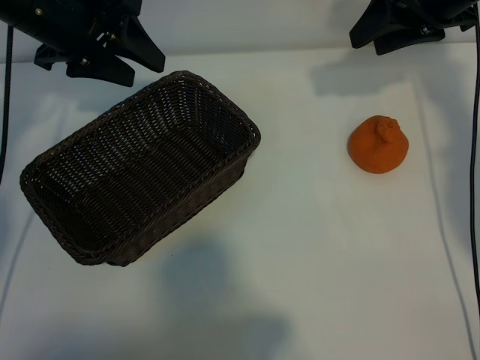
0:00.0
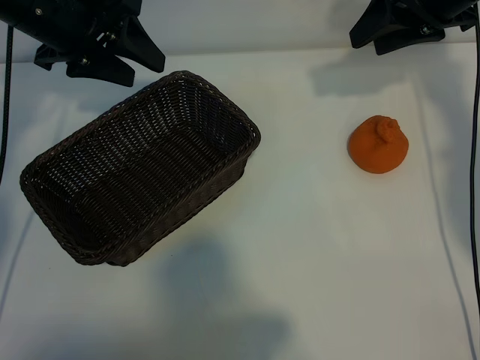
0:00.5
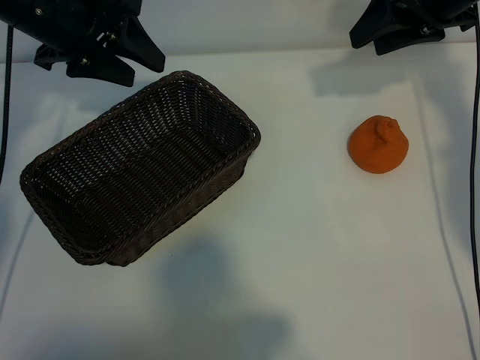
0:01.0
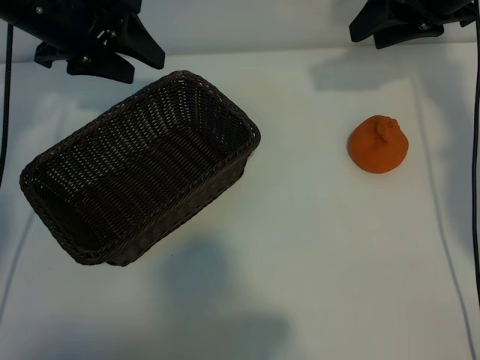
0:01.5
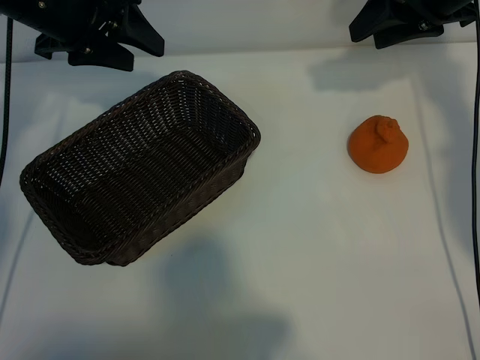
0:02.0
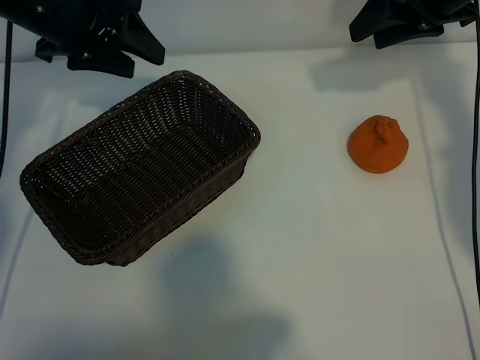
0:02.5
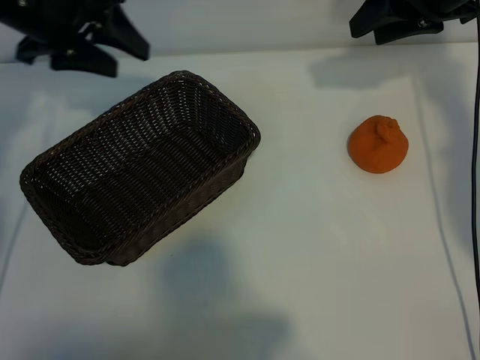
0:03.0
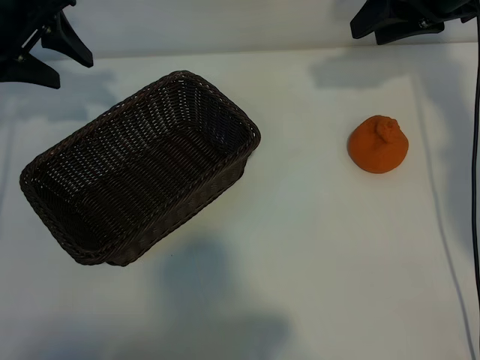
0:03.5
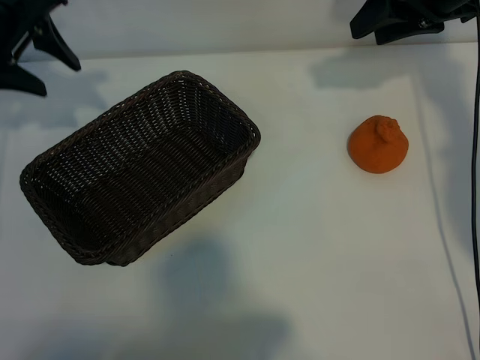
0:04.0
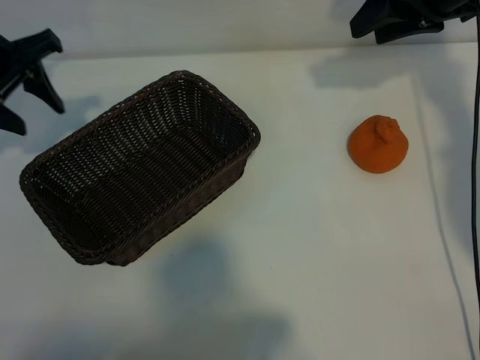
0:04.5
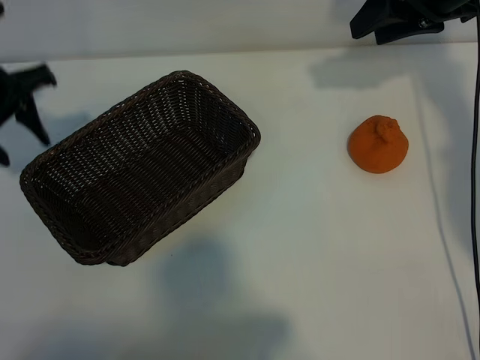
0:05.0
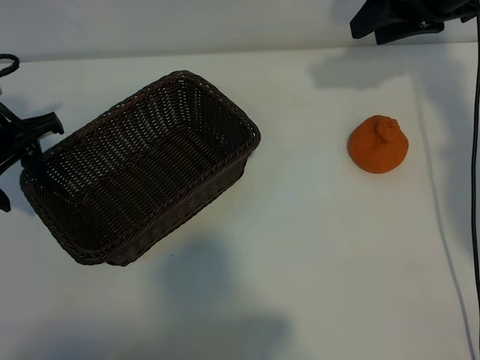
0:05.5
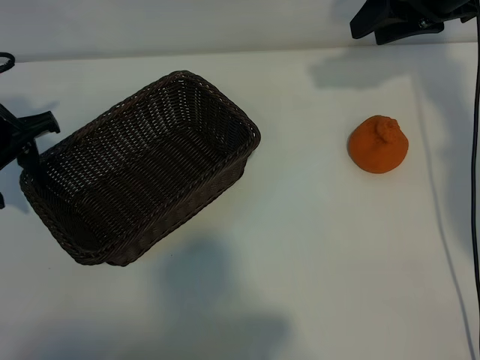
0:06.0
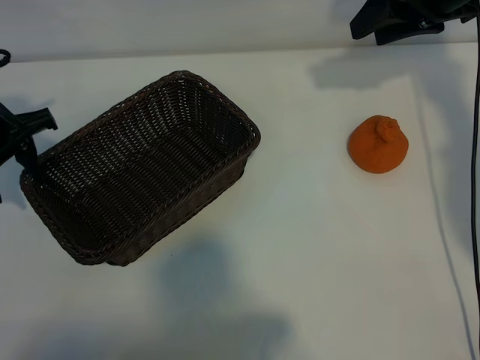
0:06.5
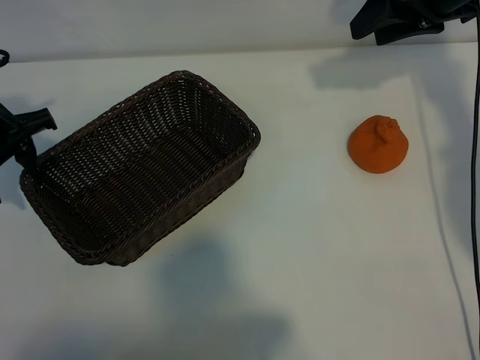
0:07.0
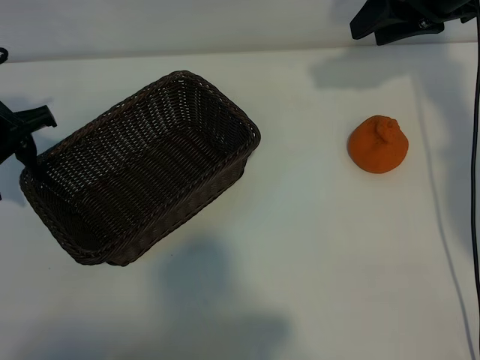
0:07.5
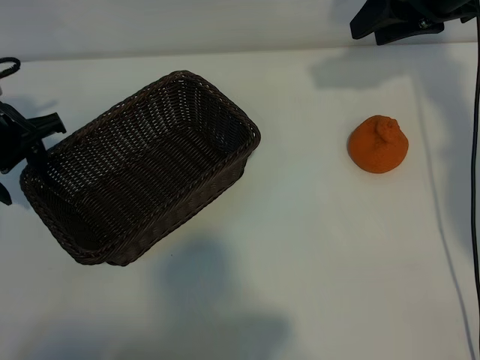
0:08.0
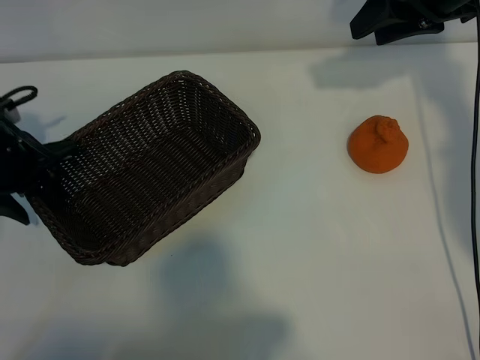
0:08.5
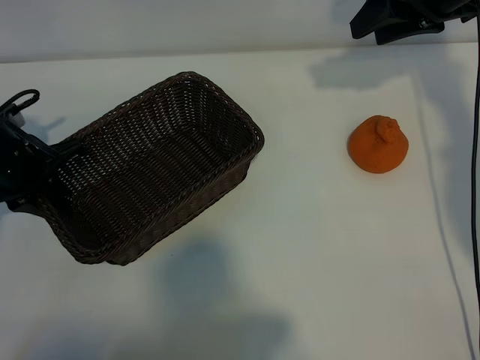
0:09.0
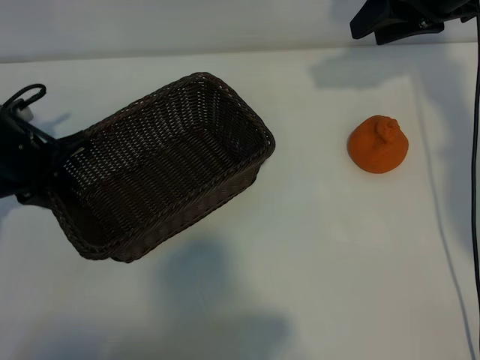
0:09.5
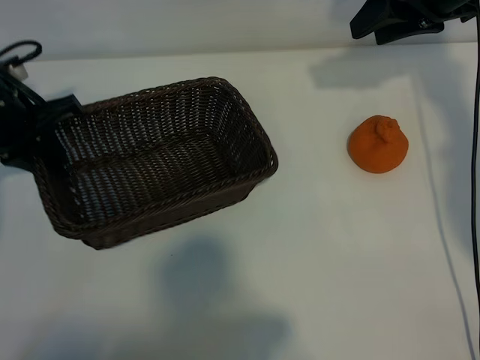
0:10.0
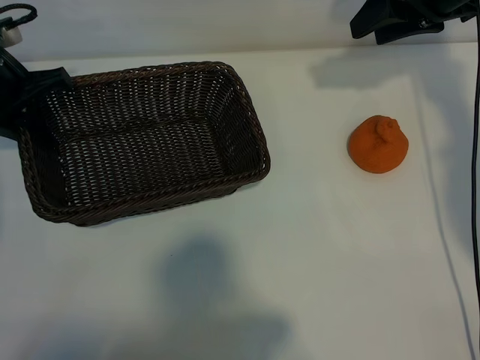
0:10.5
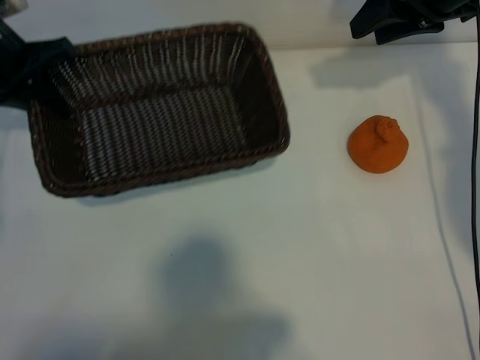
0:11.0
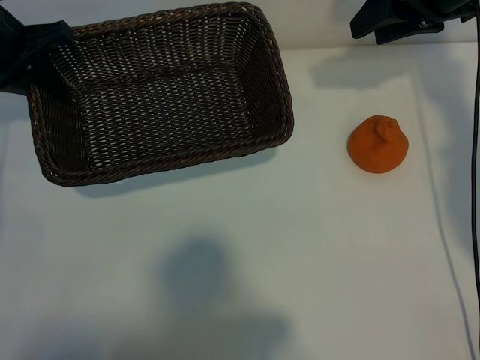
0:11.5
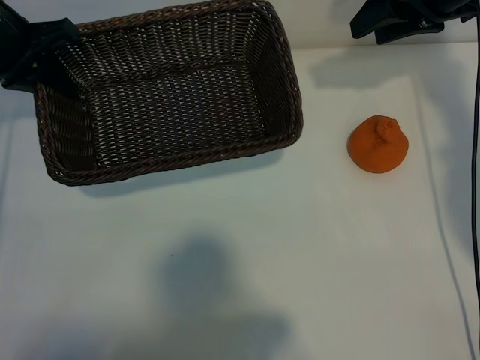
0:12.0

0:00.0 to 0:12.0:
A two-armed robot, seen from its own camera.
Task of the whole recording: pick up the orange and put it into the basket.
Step, 0:01.5 to 0:08.5: Grasp the basket with left gripper.

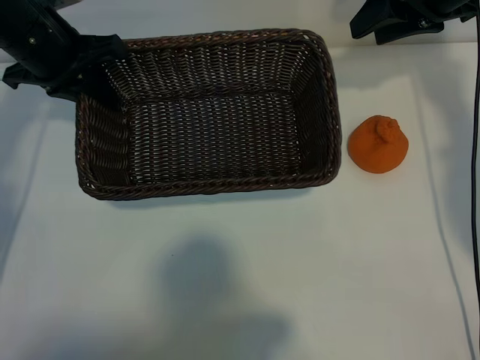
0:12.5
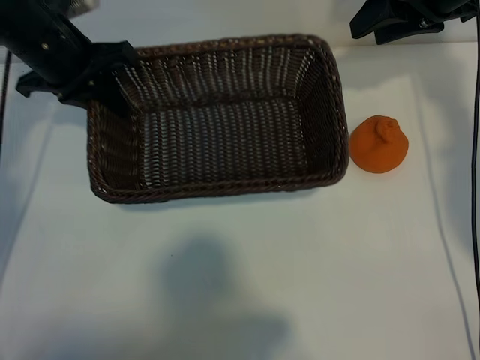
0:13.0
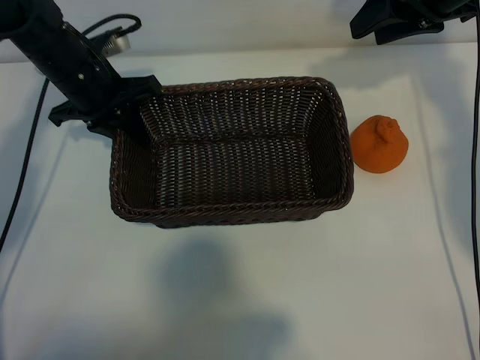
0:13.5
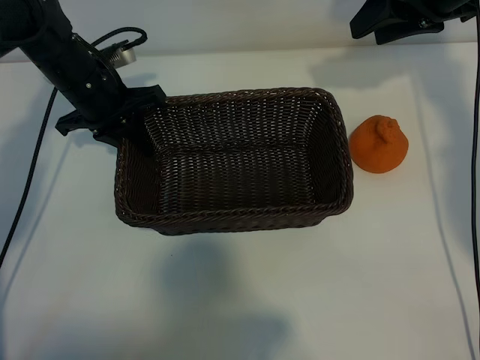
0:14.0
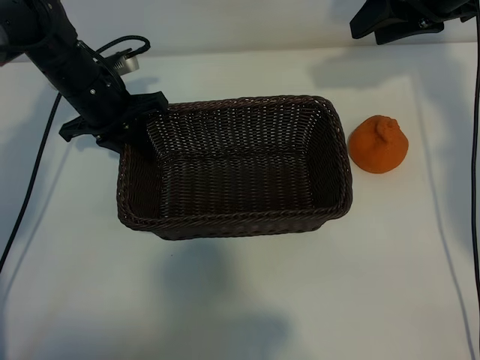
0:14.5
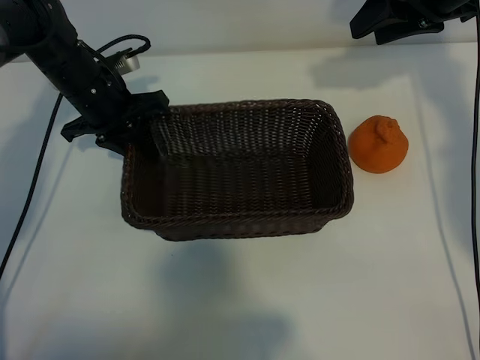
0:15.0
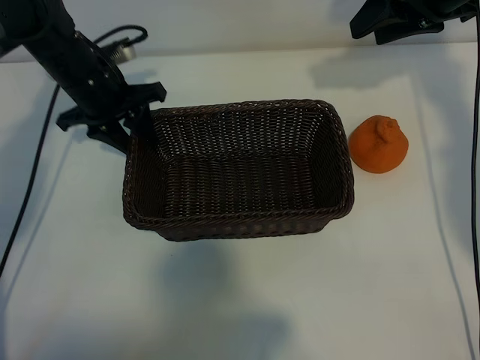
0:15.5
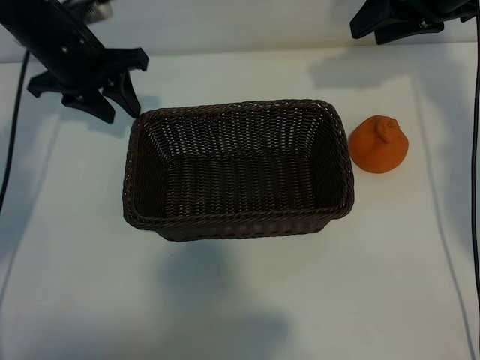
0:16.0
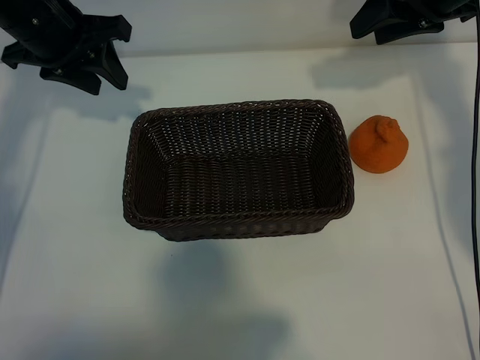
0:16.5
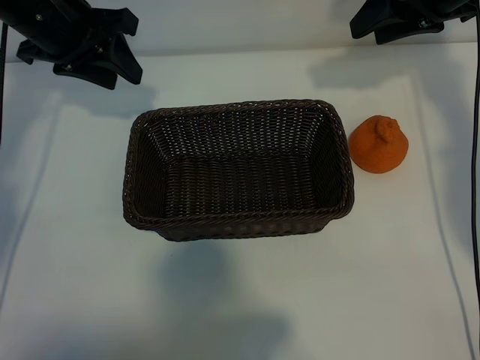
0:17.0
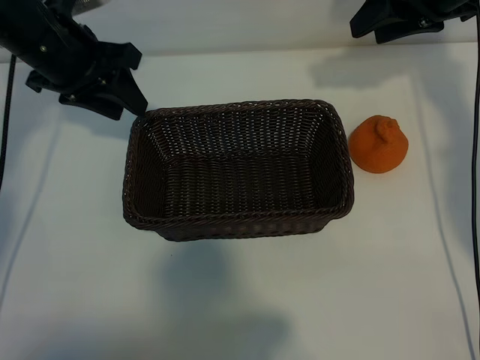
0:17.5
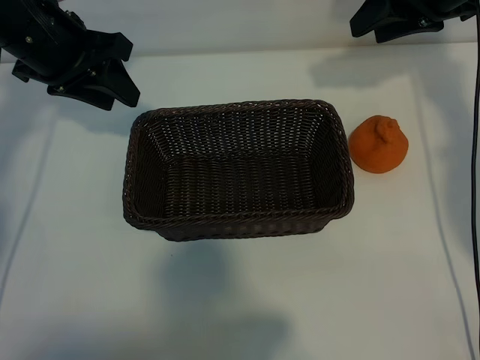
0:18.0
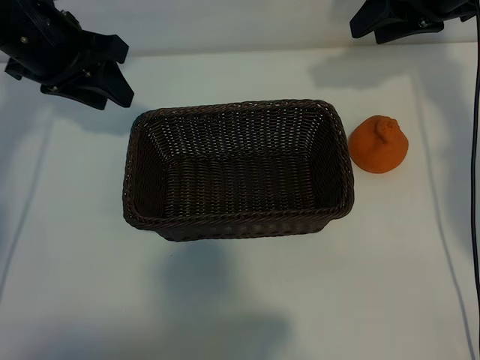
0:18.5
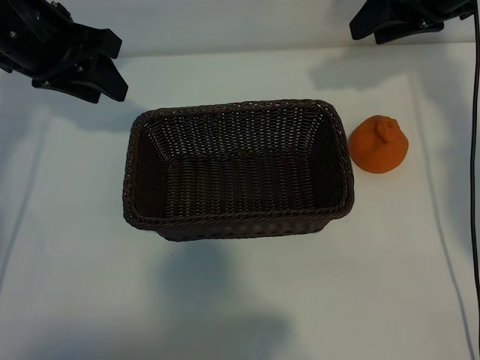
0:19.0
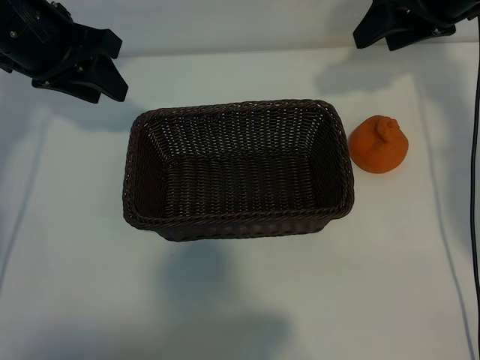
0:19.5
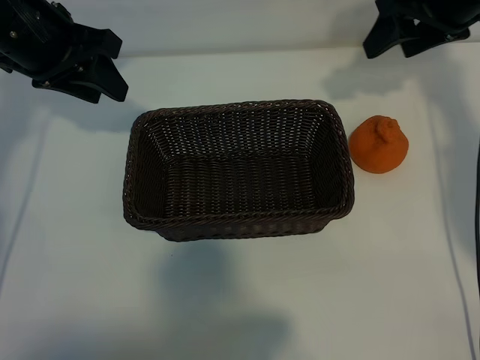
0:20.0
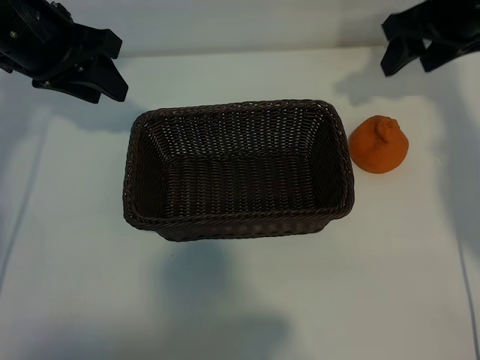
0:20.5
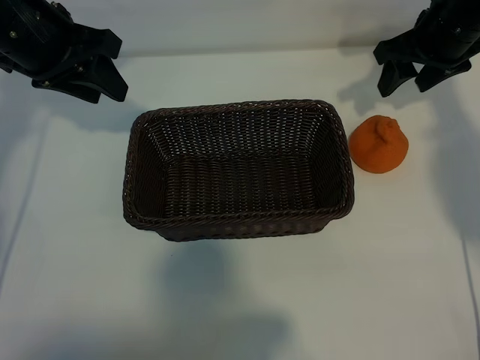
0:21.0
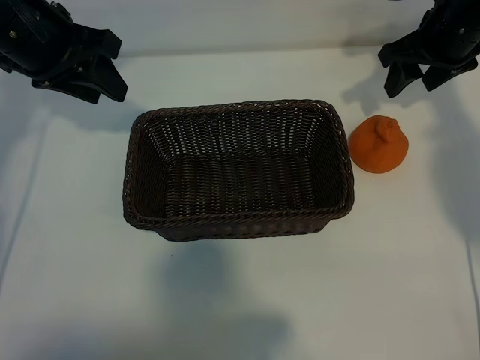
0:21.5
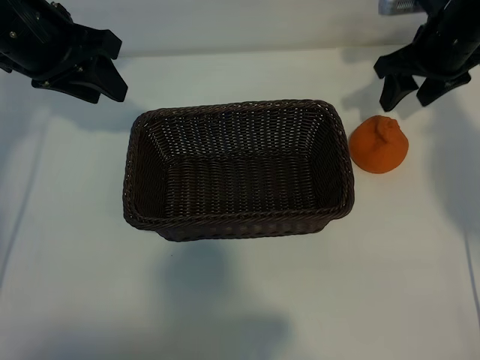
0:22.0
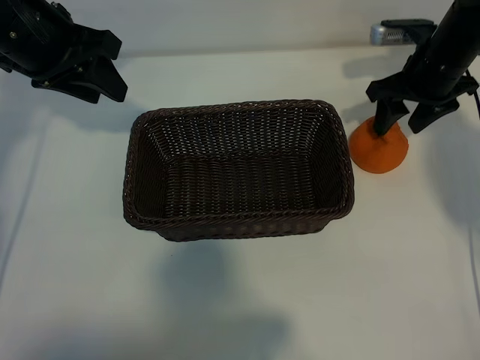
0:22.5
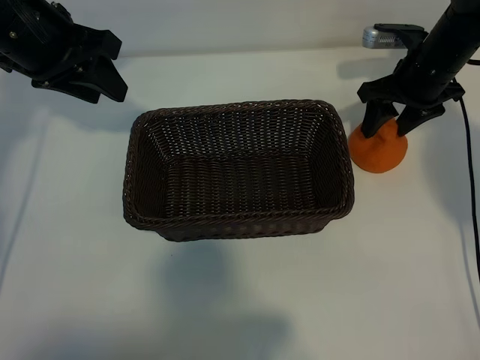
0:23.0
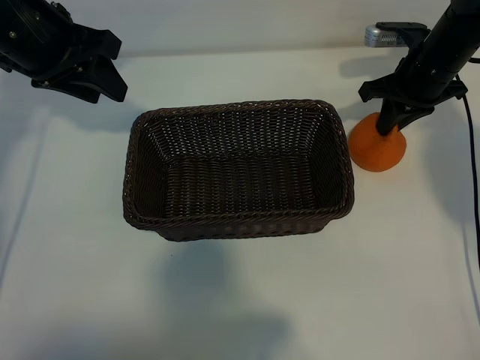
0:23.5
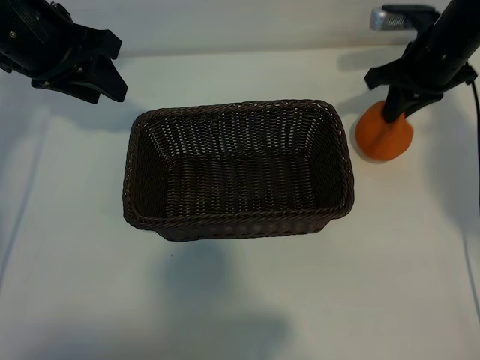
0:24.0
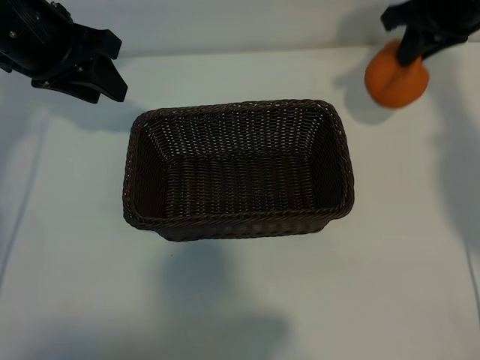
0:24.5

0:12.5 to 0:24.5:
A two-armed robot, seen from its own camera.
Task of the whole recording: pick up the orange and put it into the basket.
Step, 0:12.5 to 0:15.0: Place the basket in the center of view with left gripper.
Step, 0:15.5 to 0:23.0: Grasp the orange with right gripper.

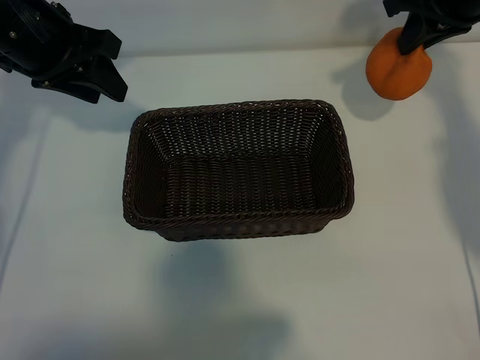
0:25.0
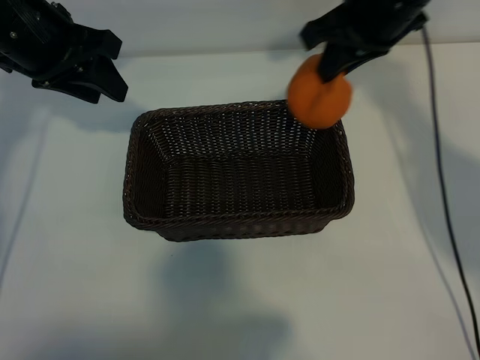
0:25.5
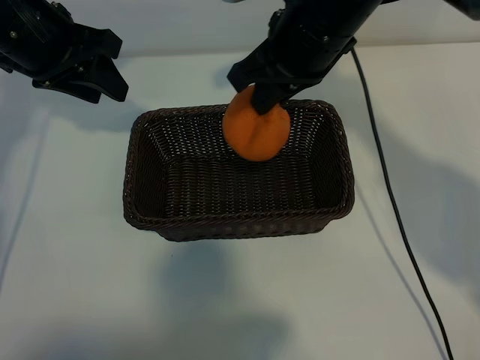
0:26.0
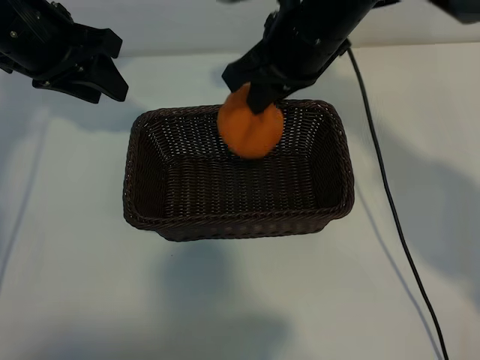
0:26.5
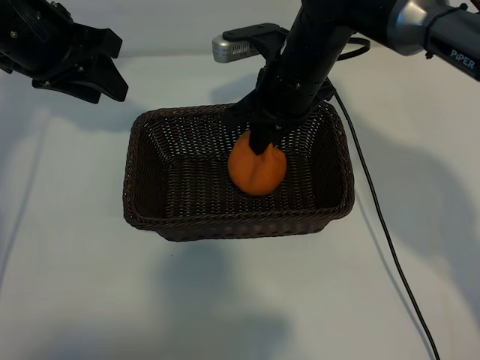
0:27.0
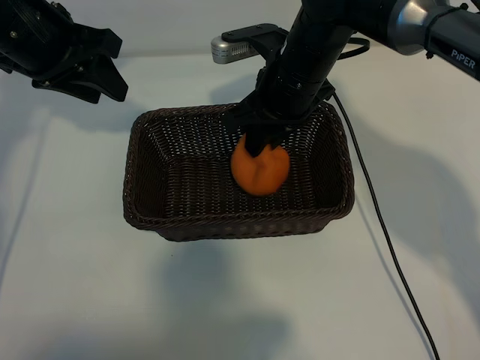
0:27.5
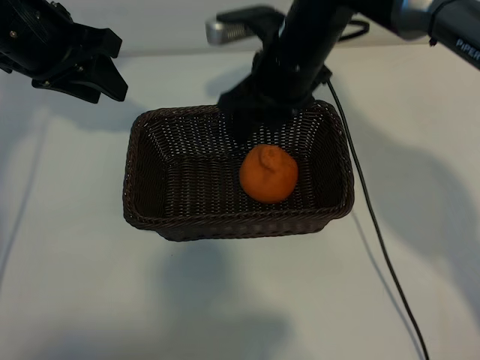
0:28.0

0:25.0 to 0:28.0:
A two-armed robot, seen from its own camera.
Task of the whole recording: pick up the orange and put it into the basket.
Step, 0:25.0 to 0:27.5: Place the orange in the basket with right gripper.
